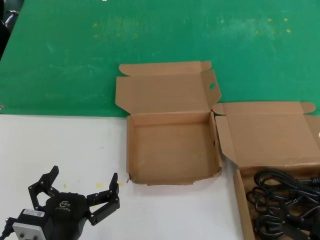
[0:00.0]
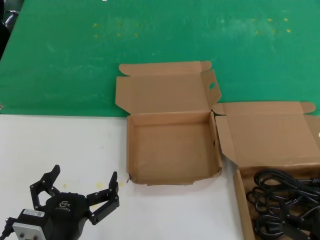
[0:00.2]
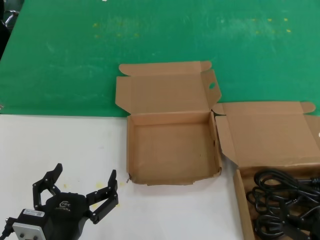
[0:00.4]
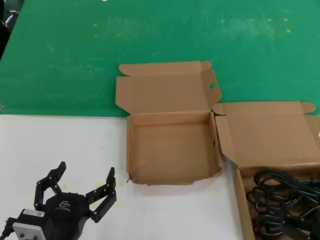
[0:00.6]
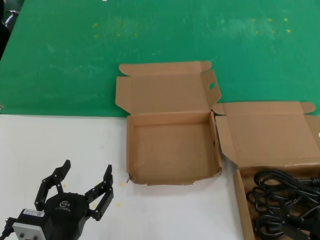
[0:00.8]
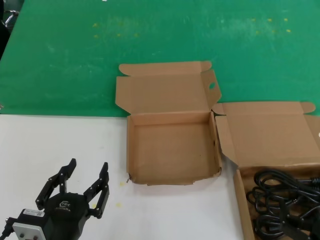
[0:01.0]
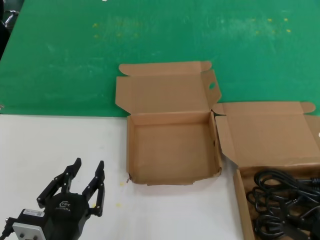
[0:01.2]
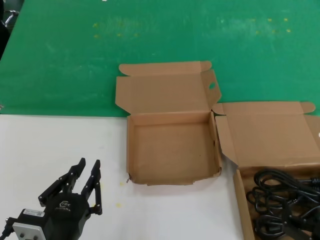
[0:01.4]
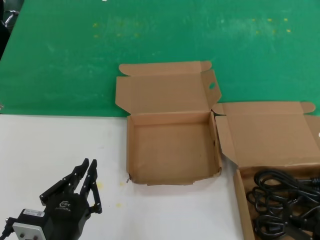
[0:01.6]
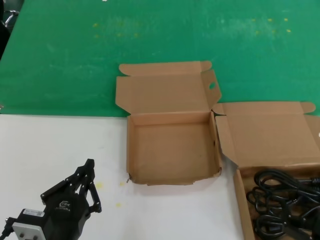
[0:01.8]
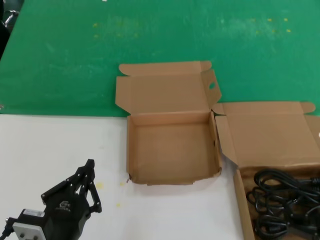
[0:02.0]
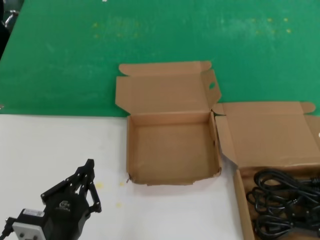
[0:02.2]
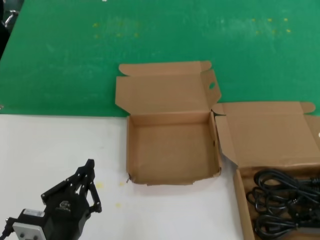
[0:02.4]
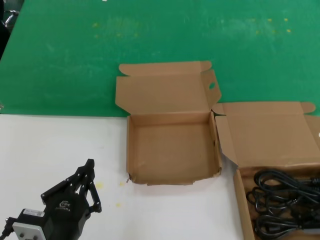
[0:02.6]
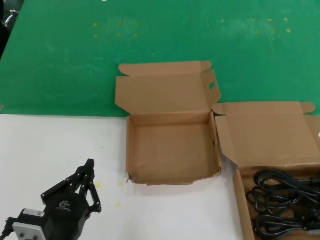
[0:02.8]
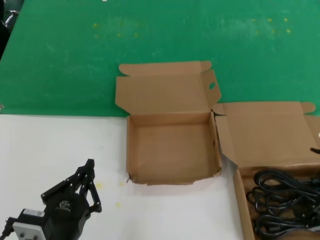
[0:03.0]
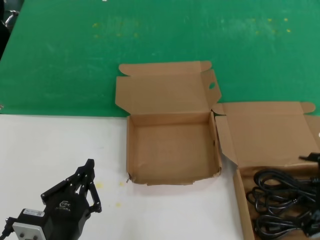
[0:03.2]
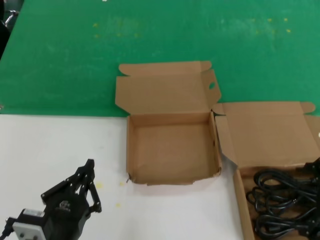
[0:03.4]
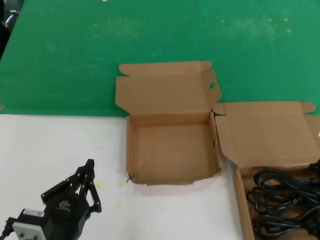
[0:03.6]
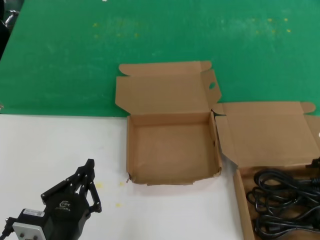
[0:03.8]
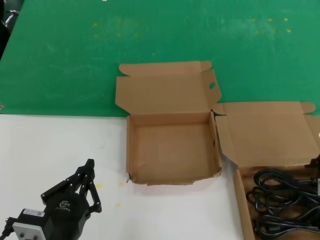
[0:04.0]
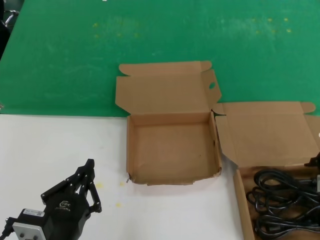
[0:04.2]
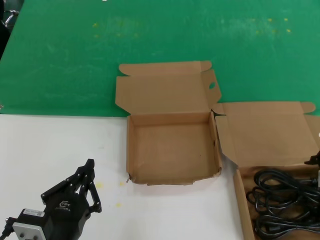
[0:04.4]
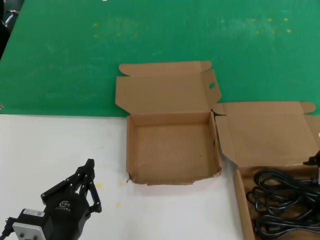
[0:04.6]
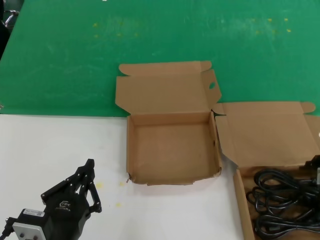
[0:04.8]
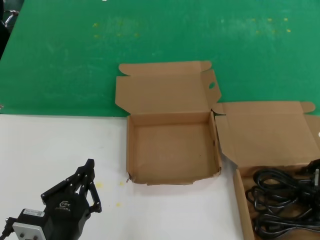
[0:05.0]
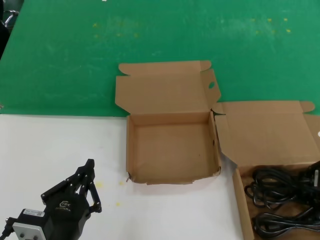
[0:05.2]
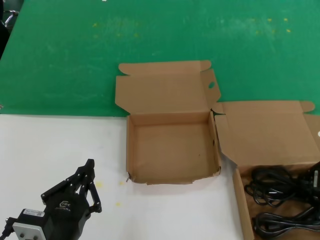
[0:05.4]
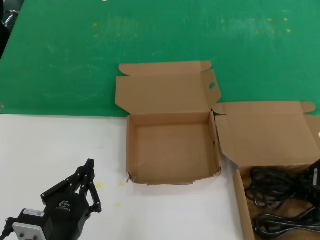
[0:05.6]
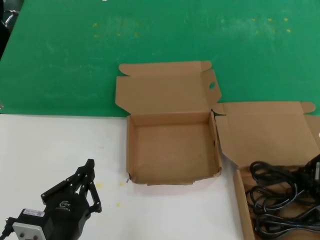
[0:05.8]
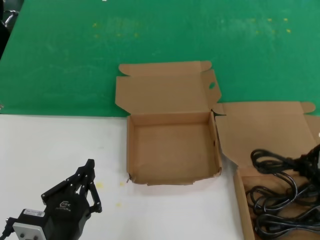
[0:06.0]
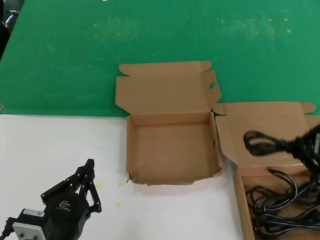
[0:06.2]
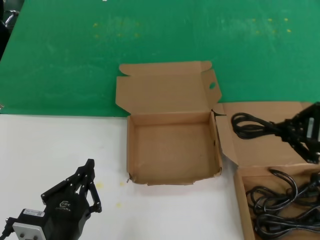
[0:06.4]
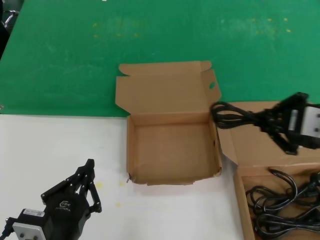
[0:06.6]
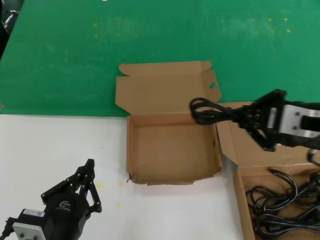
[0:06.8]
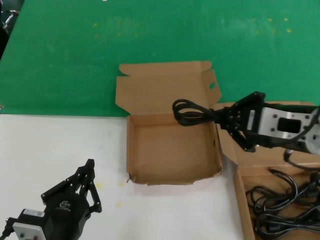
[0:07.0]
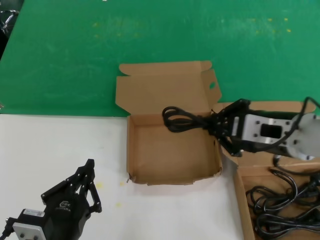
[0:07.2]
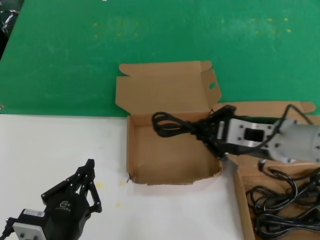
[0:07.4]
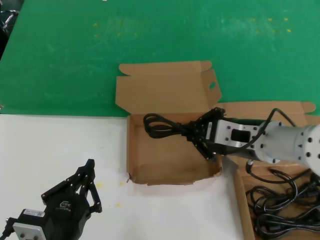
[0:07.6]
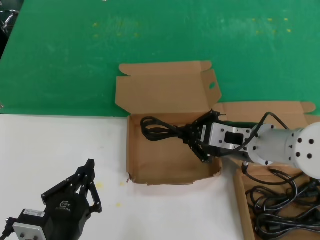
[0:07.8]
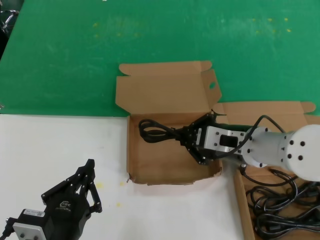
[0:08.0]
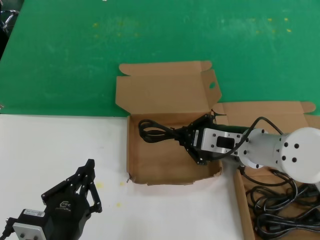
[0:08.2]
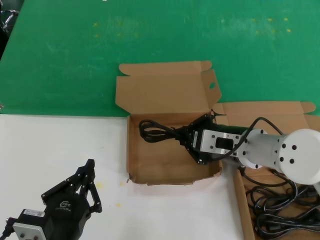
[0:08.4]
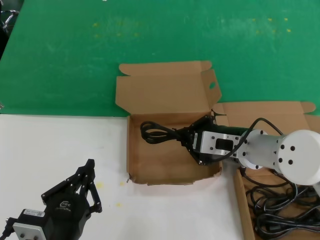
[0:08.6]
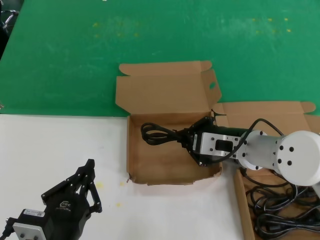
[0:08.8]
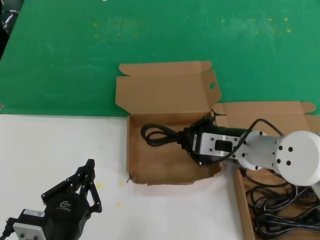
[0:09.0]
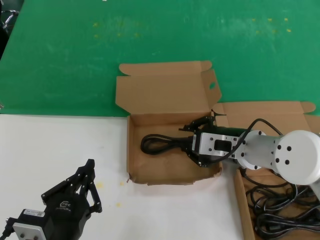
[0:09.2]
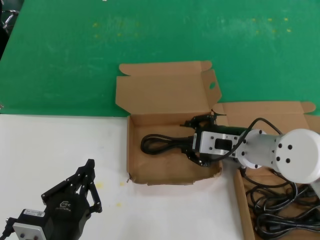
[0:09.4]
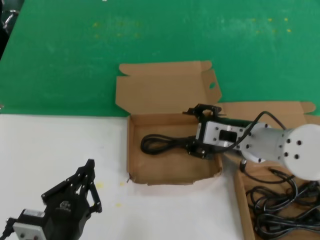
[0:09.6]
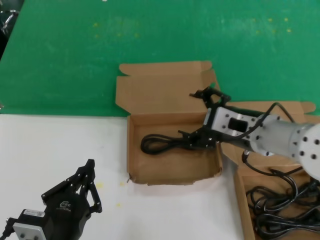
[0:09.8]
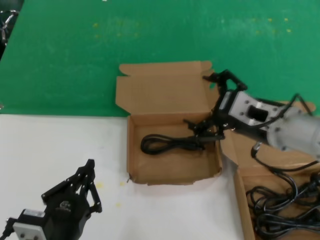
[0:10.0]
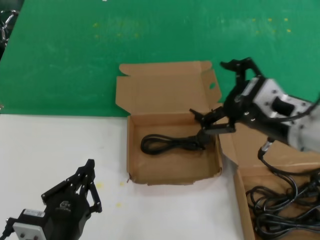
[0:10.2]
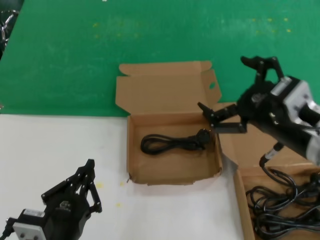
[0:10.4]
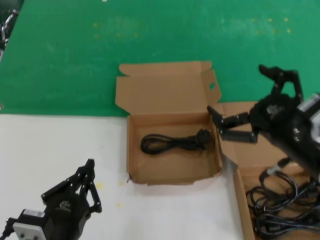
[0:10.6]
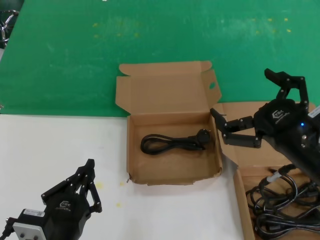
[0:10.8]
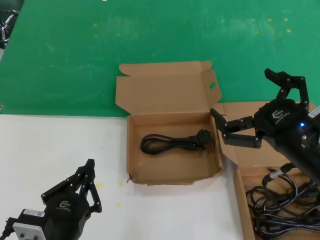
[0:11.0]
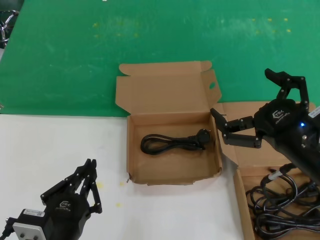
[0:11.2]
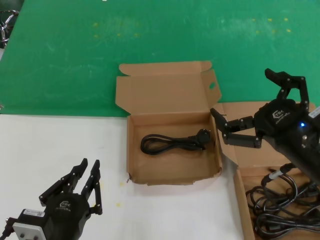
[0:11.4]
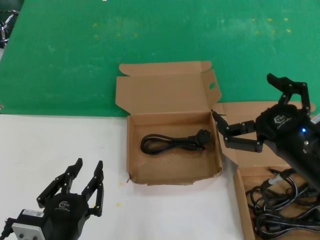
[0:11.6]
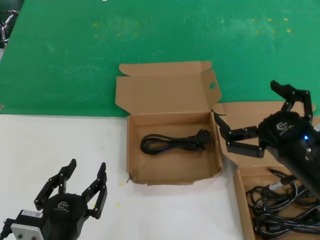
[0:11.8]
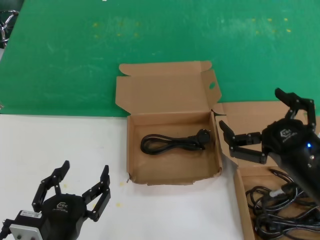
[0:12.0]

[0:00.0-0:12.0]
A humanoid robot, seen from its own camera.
Task of the whole recording: take the parts from the box containing them and put them into an empty box.
Step, 0:00.0 to 0:05.4: Grasp the data cable.
Step, 0:05.8 to 0:09.4: Place the data cable in the another box.
0:00.0 to 0:01.6: Both hands stay about where they are.
0:01.6 to 0:03.0: The right hand travels upward and to the right by some 15 cm.
0:04.4 to 0:06.0: The hands stay close to where they were, moving slightly.
0:06.0 to 0:07.6: The right hand goes roughly 15 cm to the left.
0:07.6 to 0:09.0: The right hand shifts by some 5 cm.
0:09.0 to 0:10.4: The right hand is displaced backward, to the right and upward by roughly 15 cm.
0:10.4 to 0:12.0: The right hand shifts about 10 cm downward.

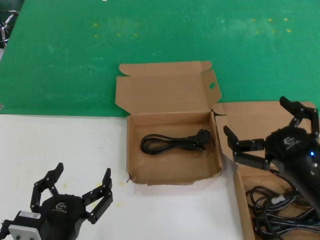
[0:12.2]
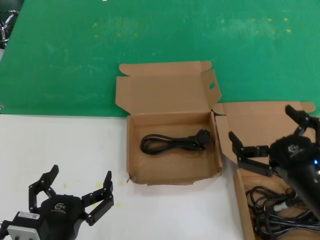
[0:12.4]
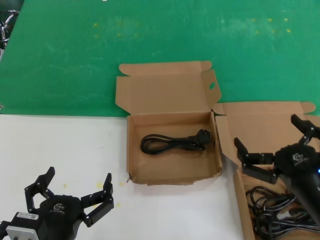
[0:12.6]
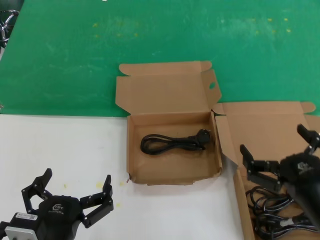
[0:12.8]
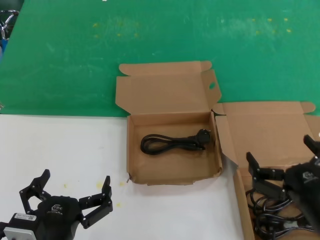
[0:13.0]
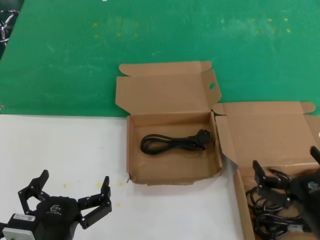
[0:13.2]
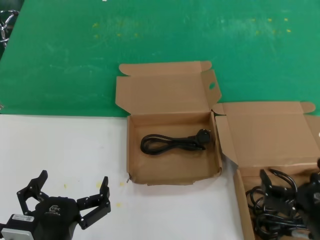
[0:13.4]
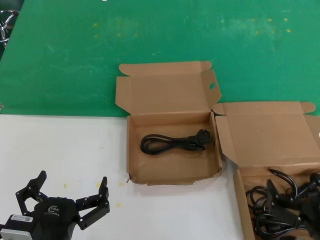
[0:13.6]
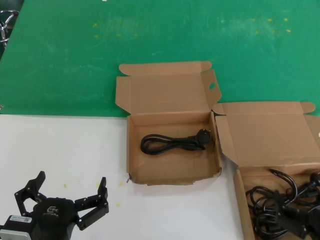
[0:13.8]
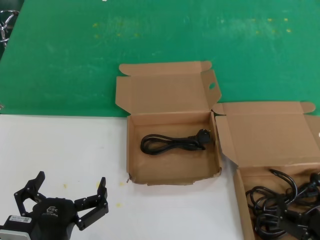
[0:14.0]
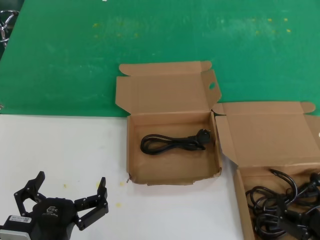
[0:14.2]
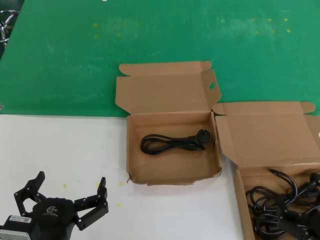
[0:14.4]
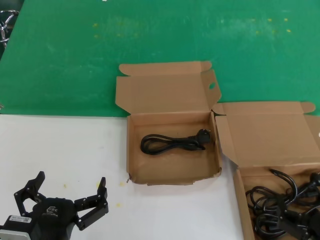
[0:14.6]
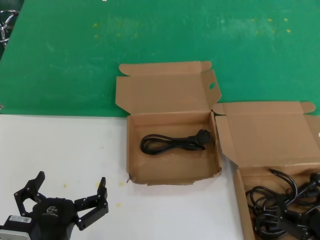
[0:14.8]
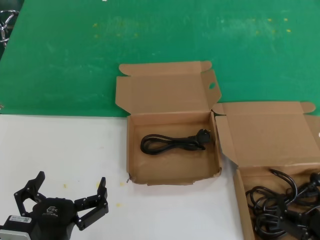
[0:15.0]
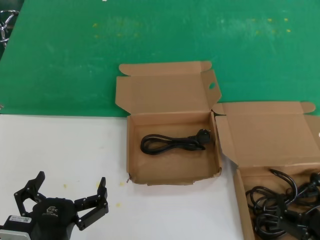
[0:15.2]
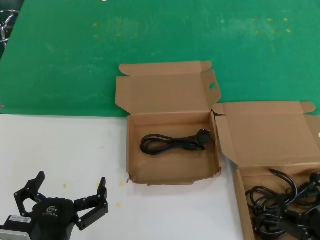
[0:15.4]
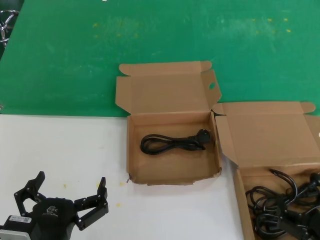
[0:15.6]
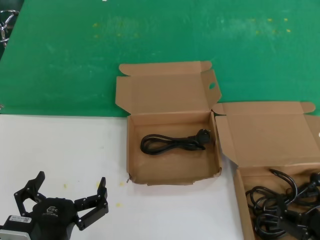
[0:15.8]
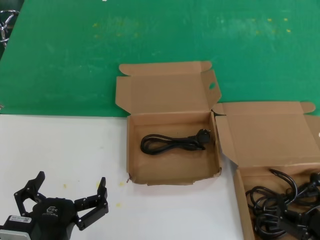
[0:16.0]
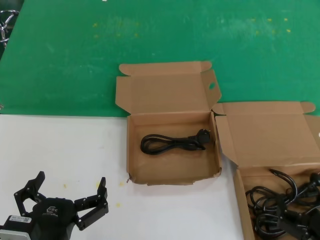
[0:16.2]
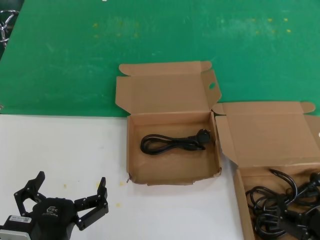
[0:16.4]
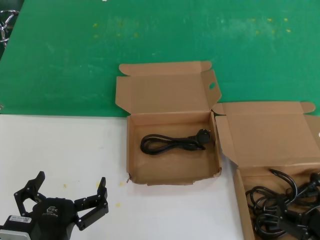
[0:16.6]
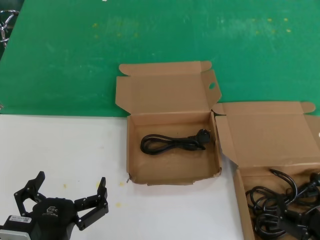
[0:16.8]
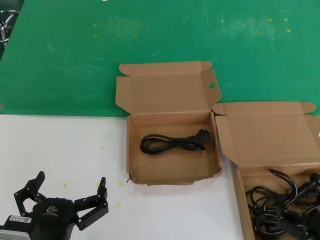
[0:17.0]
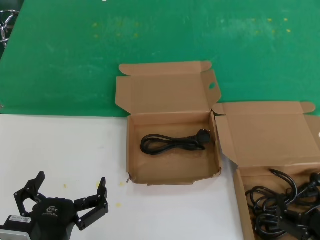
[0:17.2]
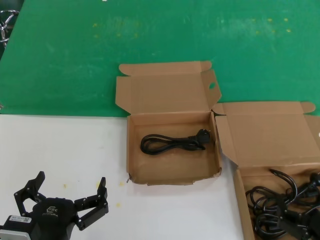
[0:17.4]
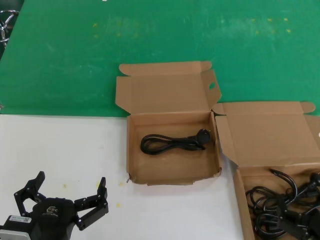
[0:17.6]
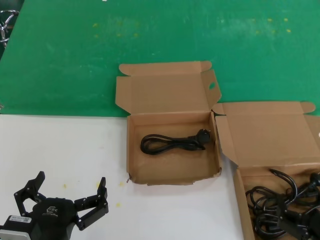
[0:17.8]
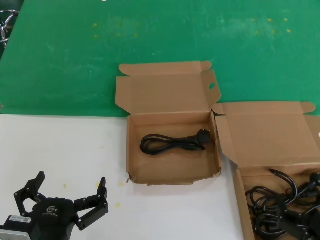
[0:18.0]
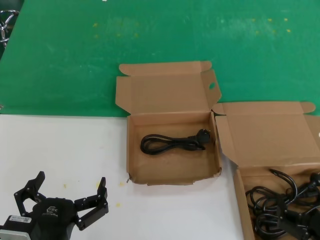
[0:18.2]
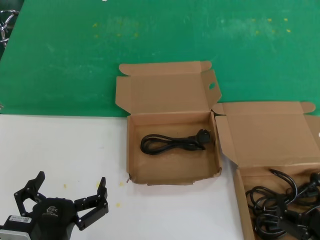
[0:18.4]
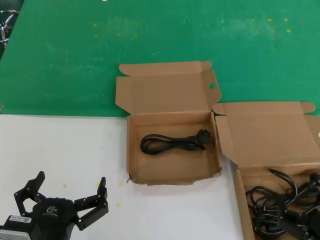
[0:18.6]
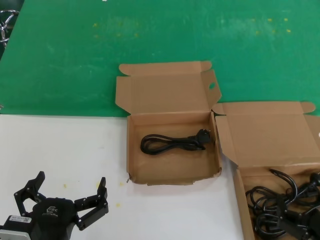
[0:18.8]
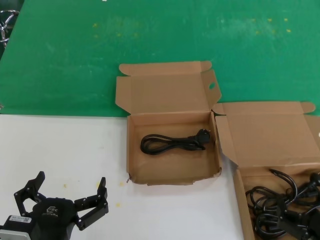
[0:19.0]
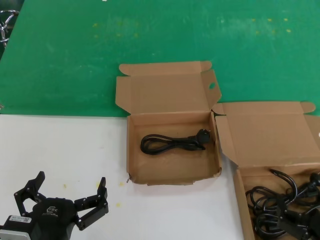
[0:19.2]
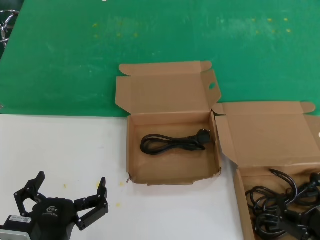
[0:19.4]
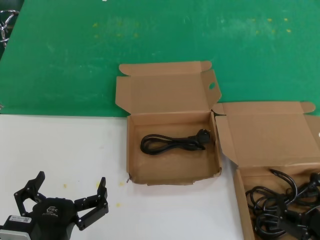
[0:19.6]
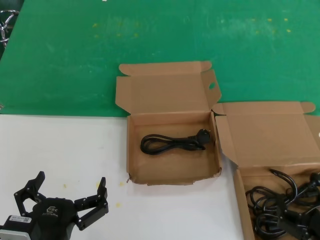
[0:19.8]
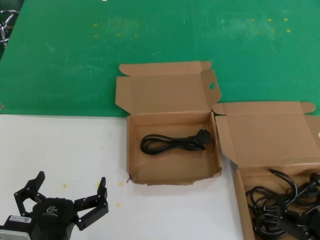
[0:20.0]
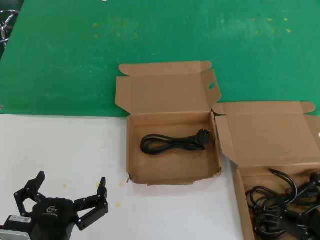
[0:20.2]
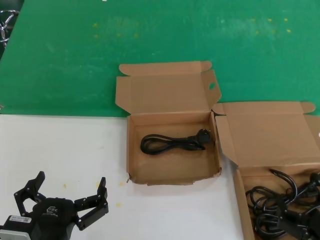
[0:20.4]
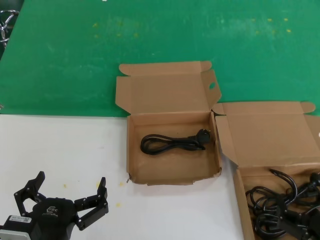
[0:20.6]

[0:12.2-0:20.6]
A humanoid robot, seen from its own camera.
Task of the whole recording: take the parts from the box containing them and put them into an empty box.
0:12.2 to 0:13.6: The right hand moves downward, roughly 10 cm.
0:13.6 to 0:15.0: The hands make only small movements.
0:15.0 to 0:20.6: Both hands stay put.
